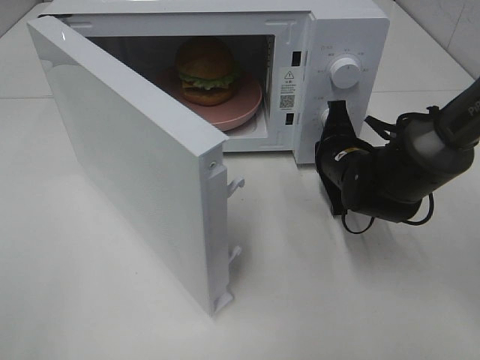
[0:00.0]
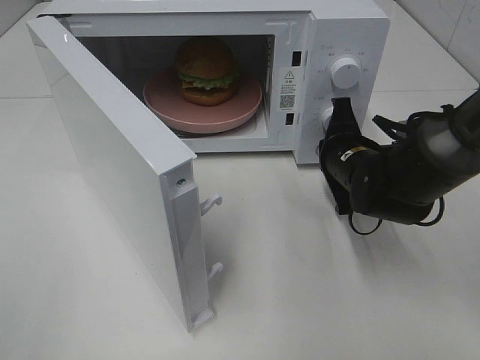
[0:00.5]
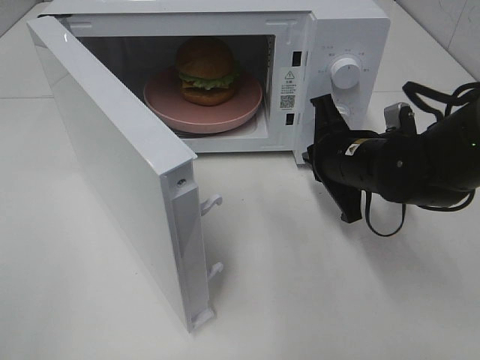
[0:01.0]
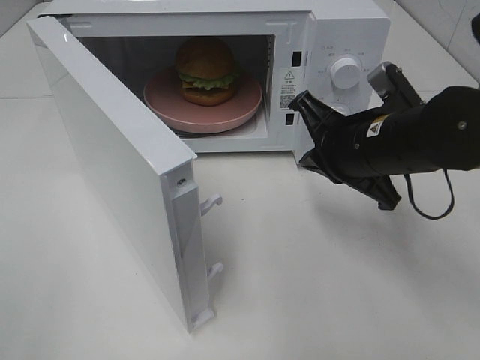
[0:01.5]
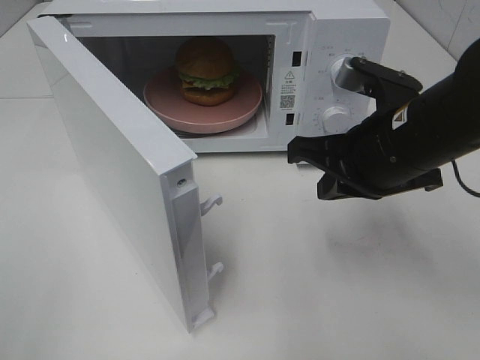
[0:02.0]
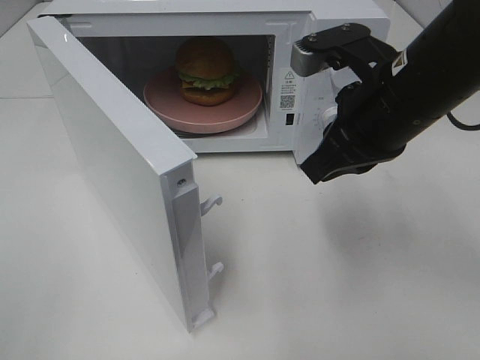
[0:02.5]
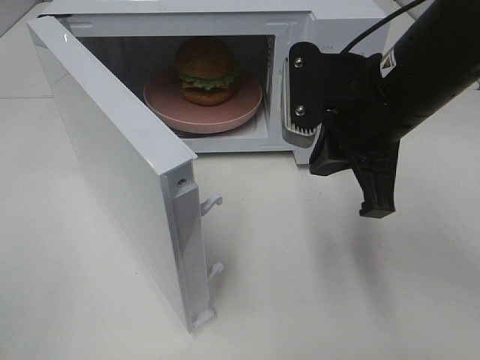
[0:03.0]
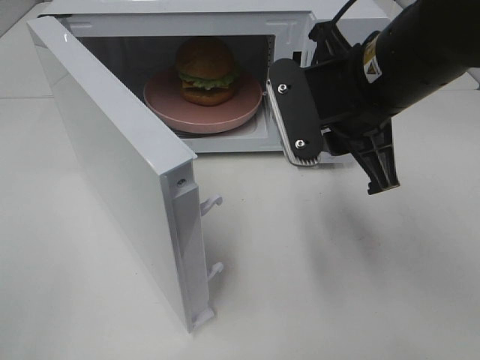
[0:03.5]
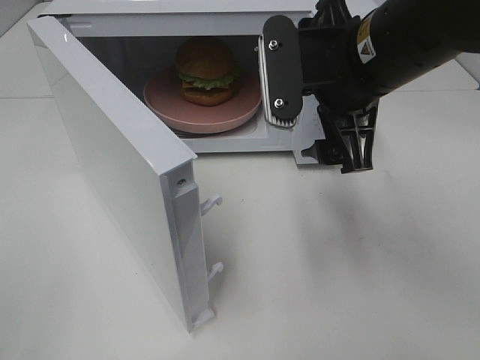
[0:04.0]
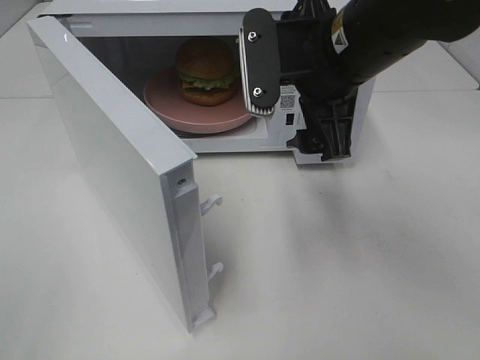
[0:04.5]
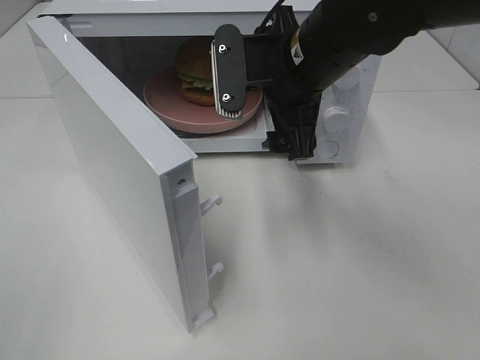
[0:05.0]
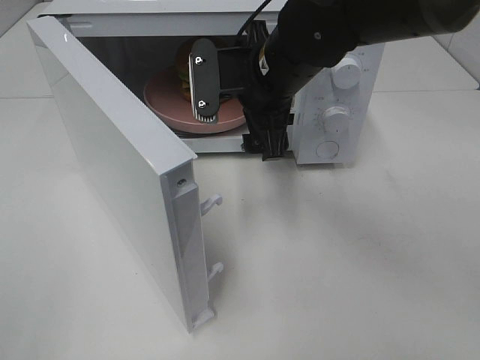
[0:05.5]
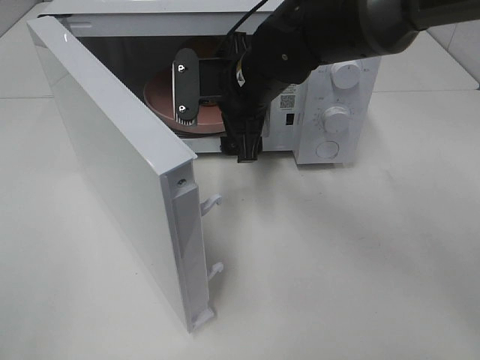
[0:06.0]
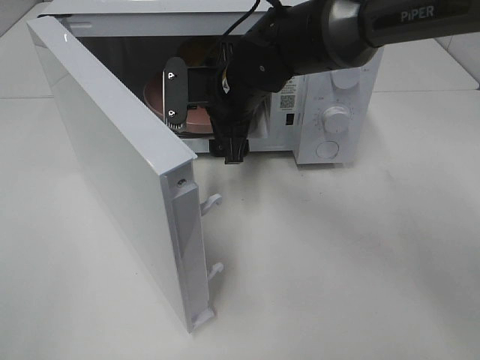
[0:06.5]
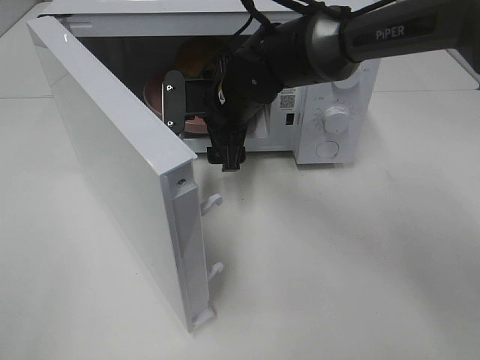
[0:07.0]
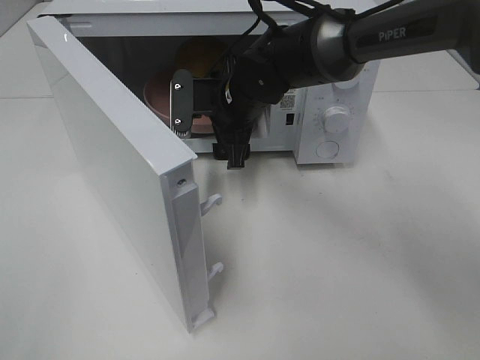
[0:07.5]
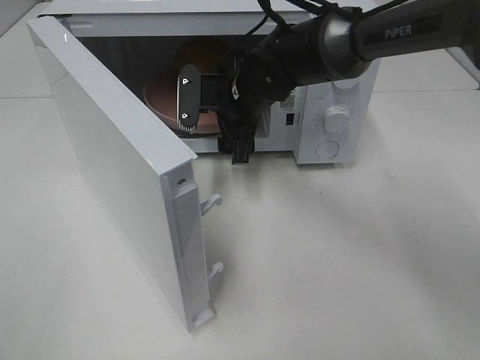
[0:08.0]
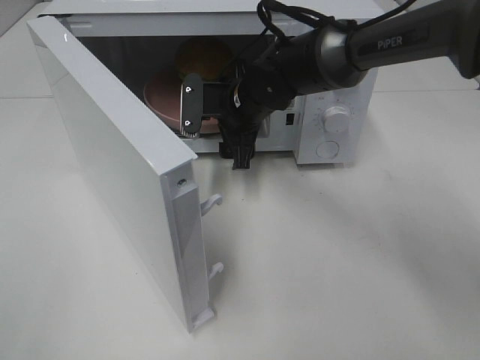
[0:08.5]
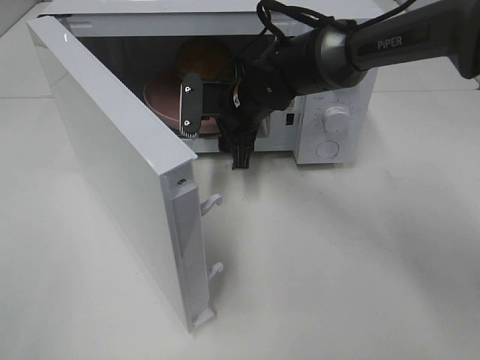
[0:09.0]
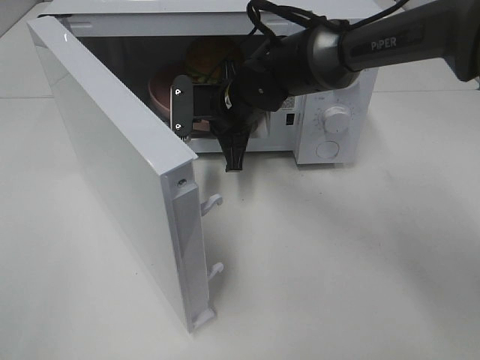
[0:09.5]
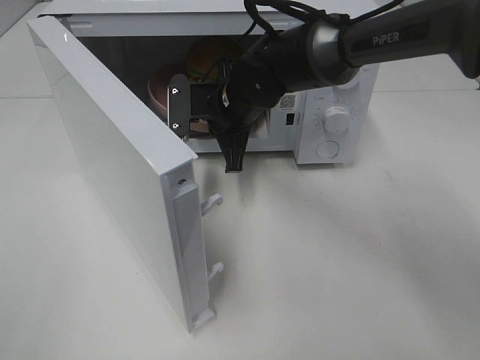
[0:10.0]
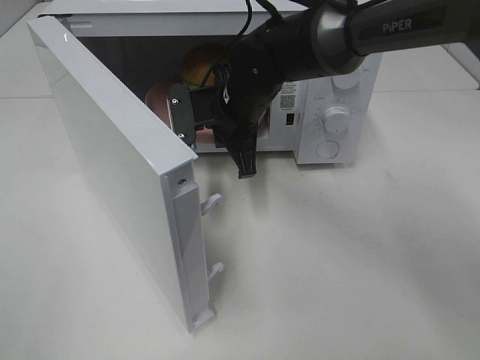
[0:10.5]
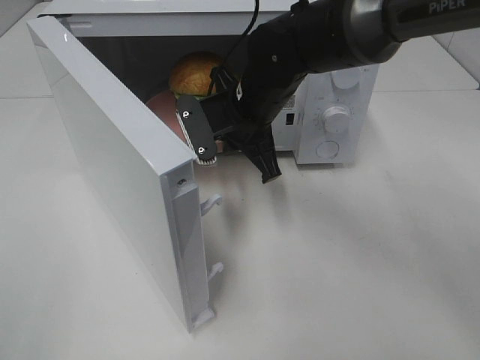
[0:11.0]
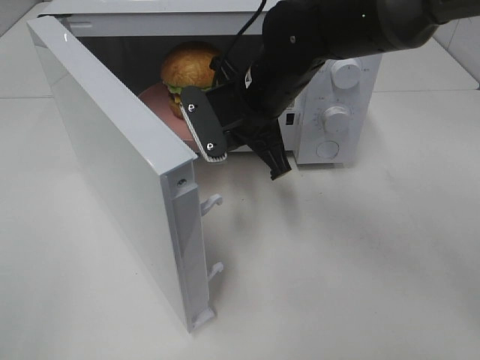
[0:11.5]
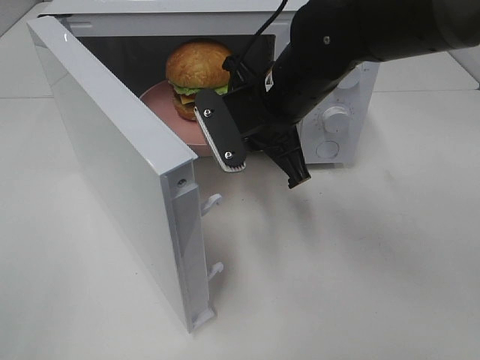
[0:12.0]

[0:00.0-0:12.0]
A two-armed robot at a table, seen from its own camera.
Task of the whole recording: Heat the burger.
Step, 0:01.0 to 0:09.0: Right hand: grab the plate with the hamburger.
0:00.0 to 0:02.0: The right gripper is displaced upward and backward by roughly 15 cm.
0:02.0 to 0:04.0: The right gripper is displaced upward by approximately 5 cm, and opens up.
0:04.0 to 0:06.0: The right gripper shifts some 15 cm forward, to the left and downward.
0:06.0 to 0:08.0: The right gripper shifts by approximately 5 cm.
0:08.0 to 0:10.0: The right gripper closes its fingers.
0:10.0 to 0:12.0: The right gripper is displaced backward and upward by roughly 10 cm.

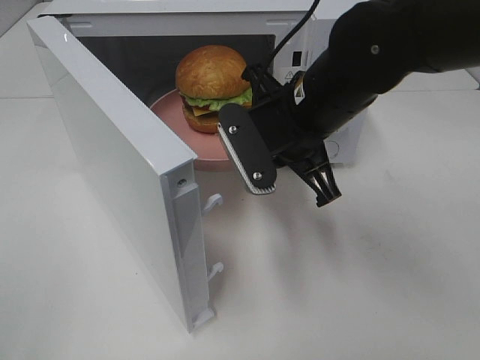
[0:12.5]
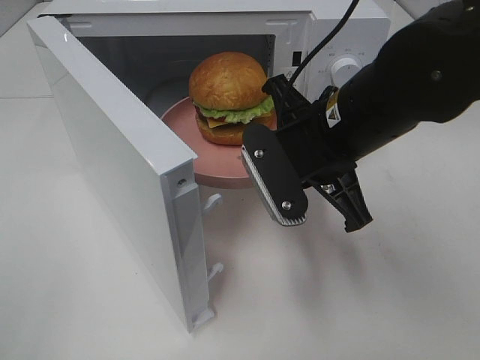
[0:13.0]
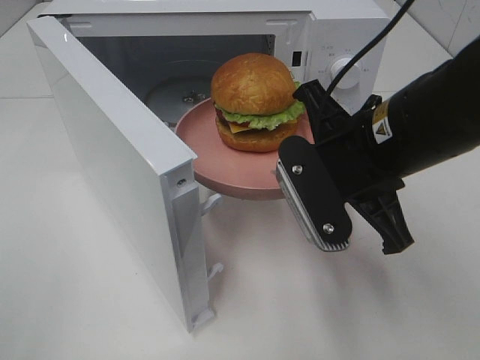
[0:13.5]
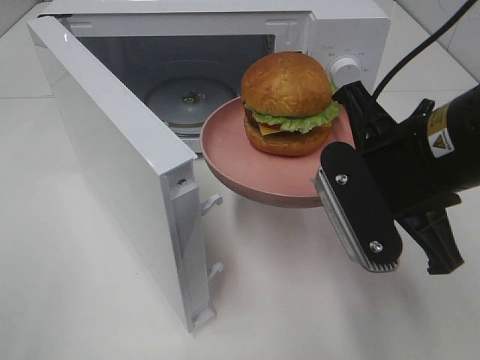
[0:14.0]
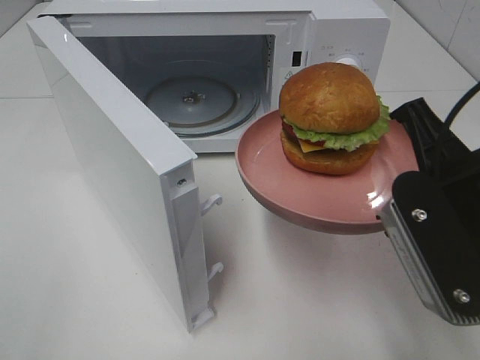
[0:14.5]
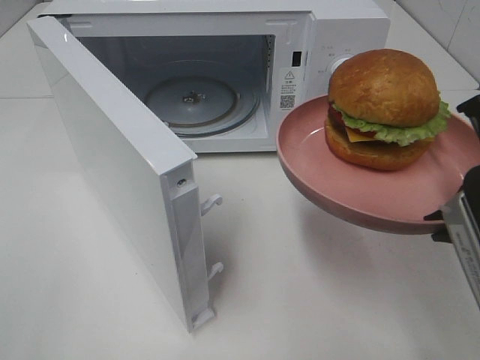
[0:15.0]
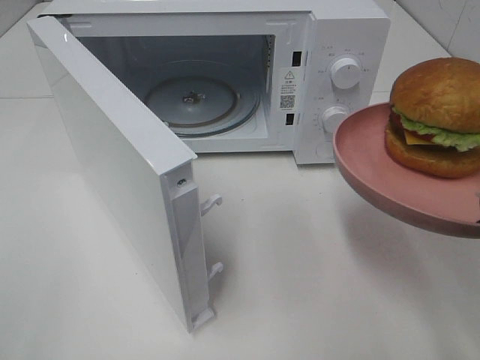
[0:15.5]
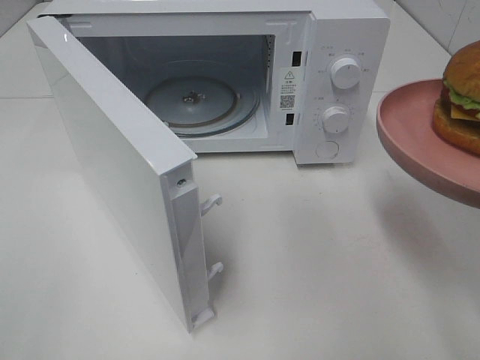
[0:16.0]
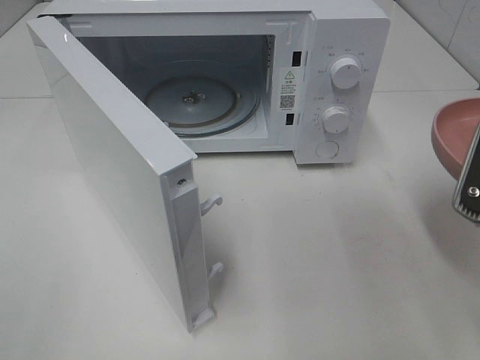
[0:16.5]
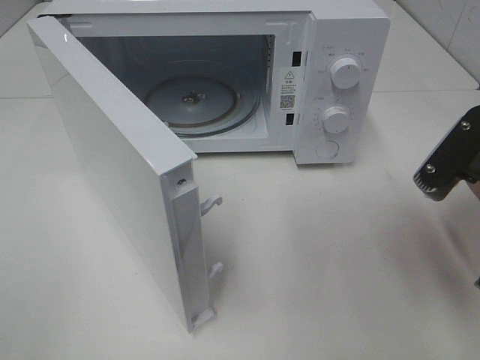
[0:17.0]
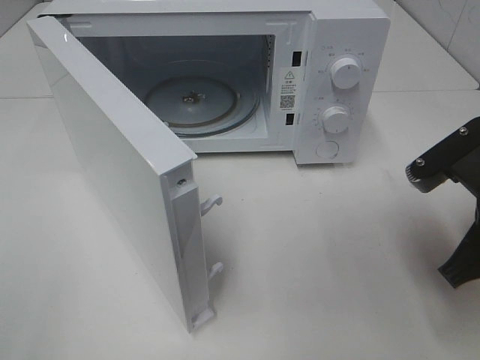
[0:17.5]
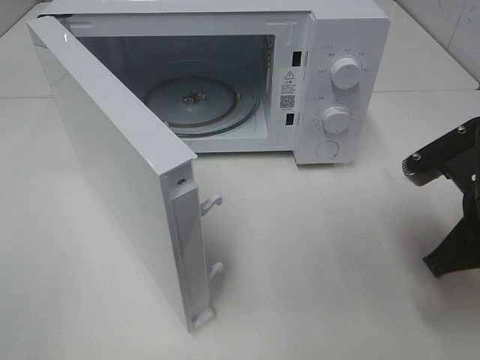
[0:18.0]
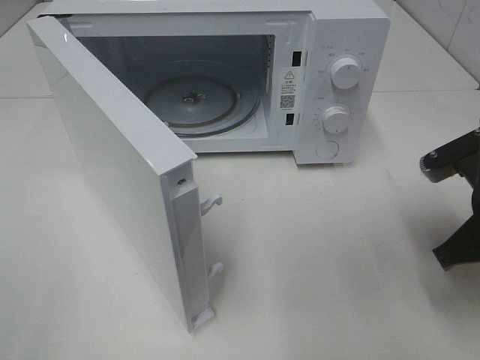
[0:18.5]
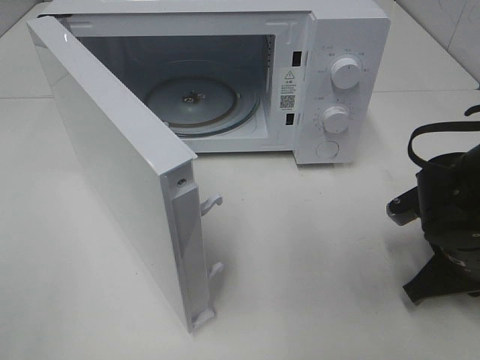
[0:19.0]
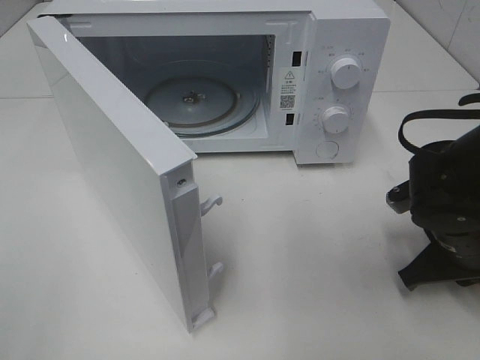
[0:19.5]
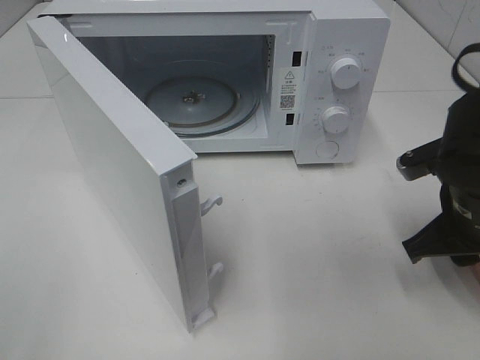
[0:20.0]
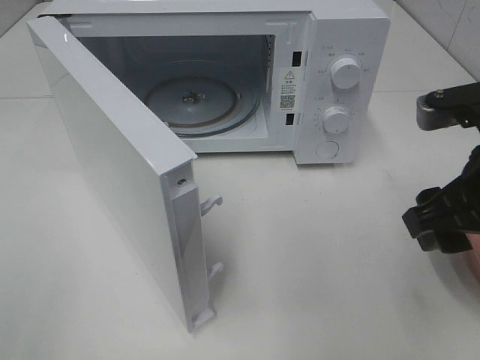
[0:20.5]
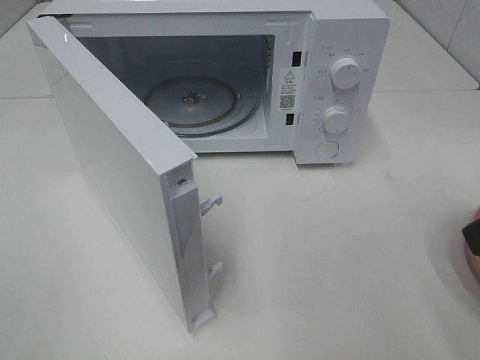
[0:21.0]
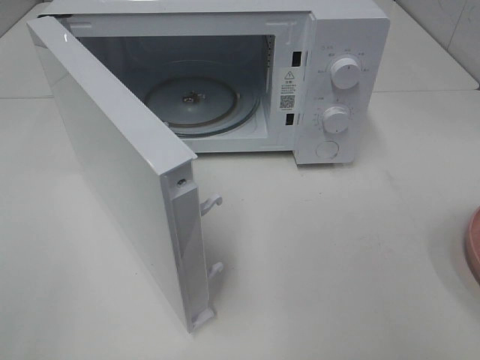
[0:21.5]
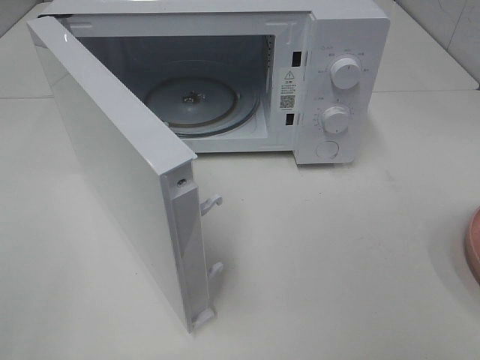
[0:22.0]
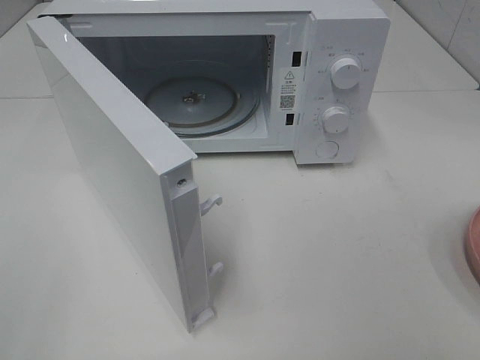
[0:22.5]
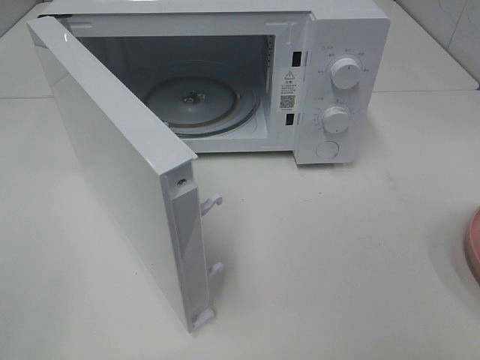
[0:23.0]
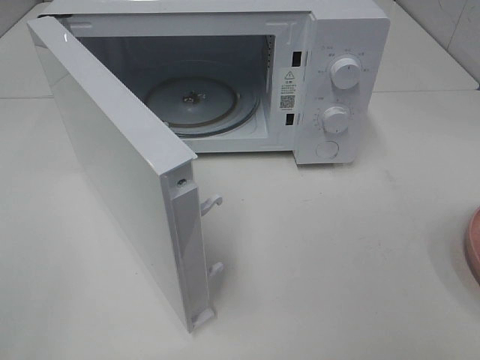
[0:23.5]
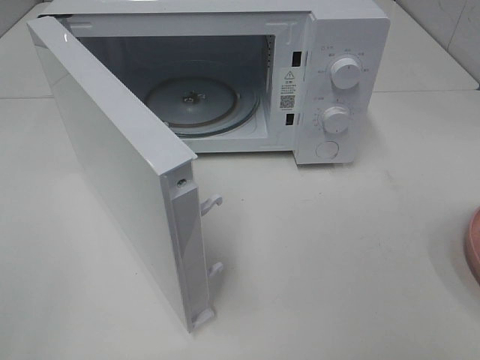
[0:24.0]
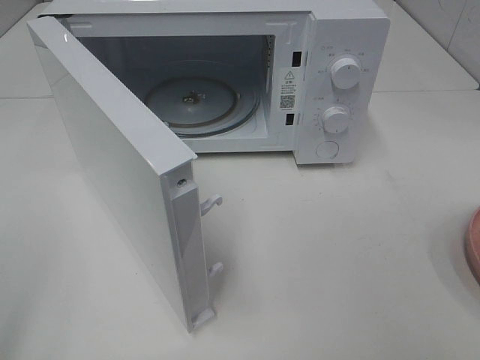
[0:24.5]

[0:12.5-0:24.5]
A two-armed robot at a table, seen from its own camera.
Task of the whole recording: Heat the burger.
Step, 0:12.5 to 0:19.5: Right hand: place the plate on the table.
0:12.5 to 0:14.5: The right gripper goes some 15 cm backward and to the right.
0:14.5 to 0:16.5: The right gripper heads to the right, covering roughly 5 cm.
0:16.5 to 0:18.5: The right gripper goes roughly 10 cm downward and forward.
0:18.5 to 0:20.5: The right gripper travels upward by approximately 10 cm, and opens its fingers.
0:20.5 to 0:22.5: The right gripper is displaced backward by approximately 20 cm.

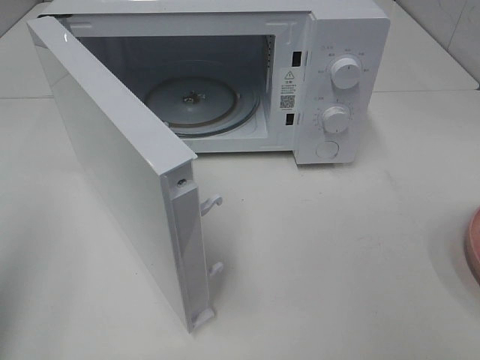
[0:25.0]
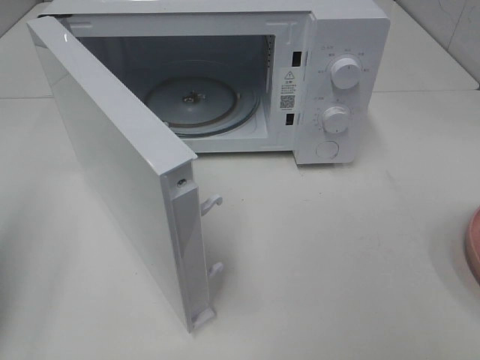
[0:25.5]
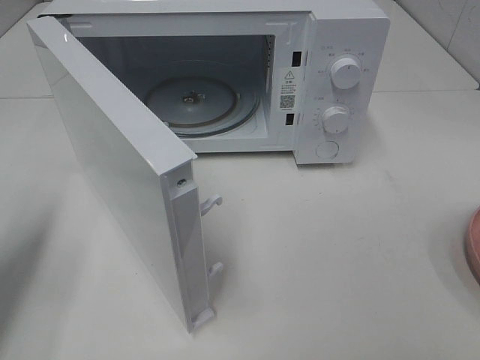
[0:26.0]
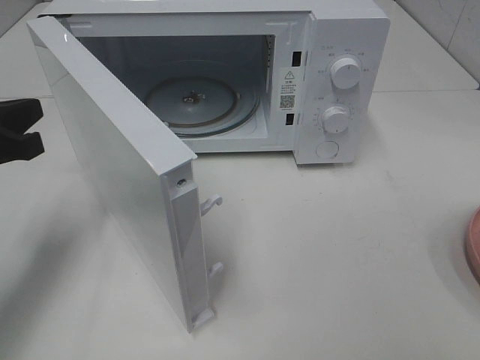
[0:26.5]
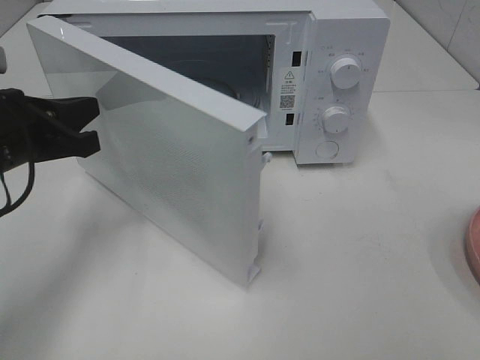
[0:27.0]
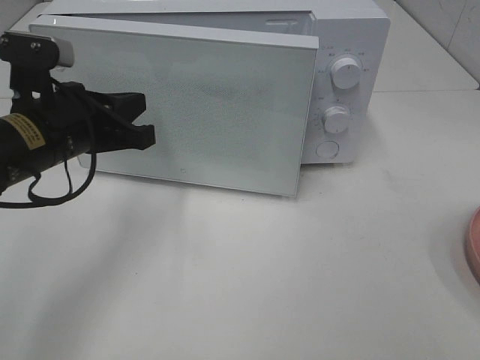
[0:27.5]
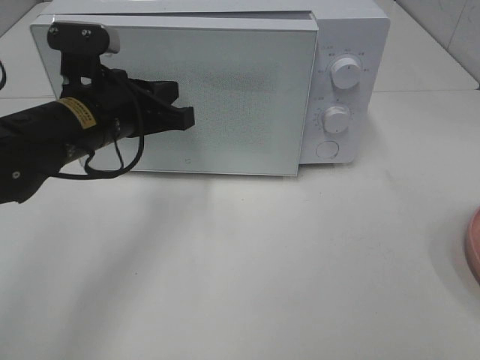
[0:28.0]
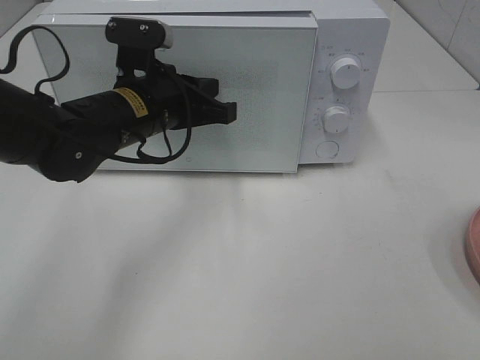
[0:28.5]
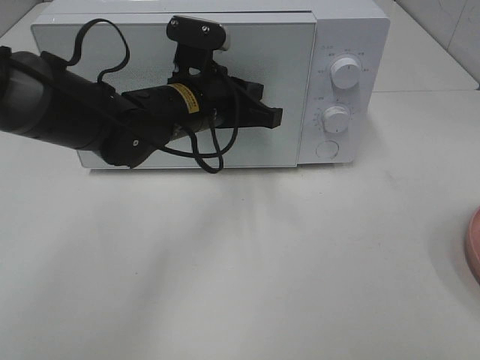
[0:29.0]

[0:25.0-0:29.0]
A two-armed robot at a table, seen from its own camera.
Task of the whole recording: Heat the burger.
0:25.0 to 0:27.0: The left gripper moves forward, downward and to the right, some 25 cm.
0:27.0 to 0:29.0: The left gripper moves to the right and forward, some 20 cm.
